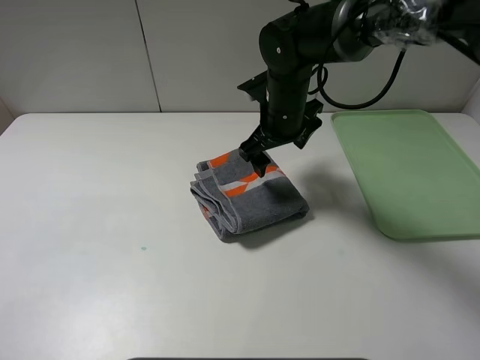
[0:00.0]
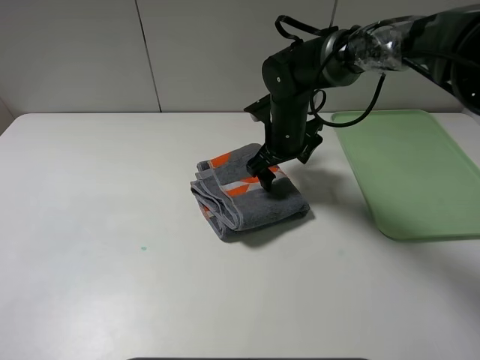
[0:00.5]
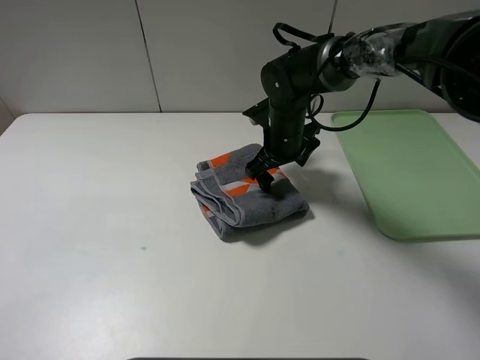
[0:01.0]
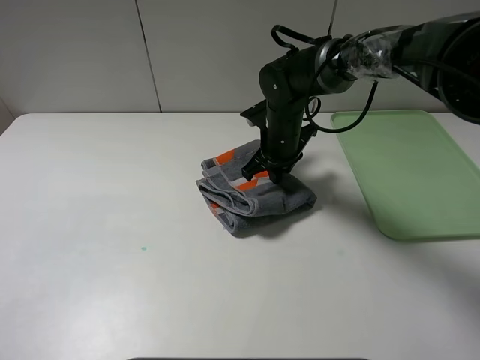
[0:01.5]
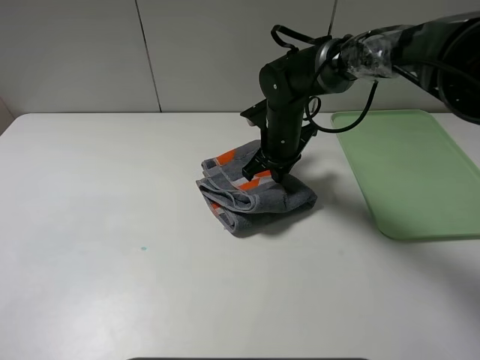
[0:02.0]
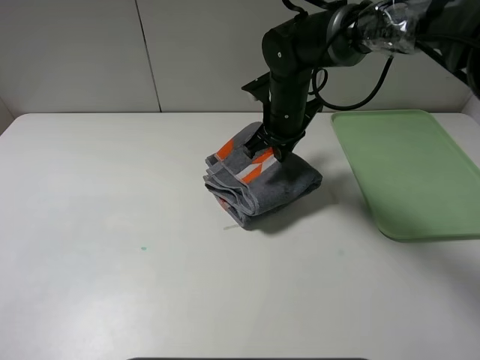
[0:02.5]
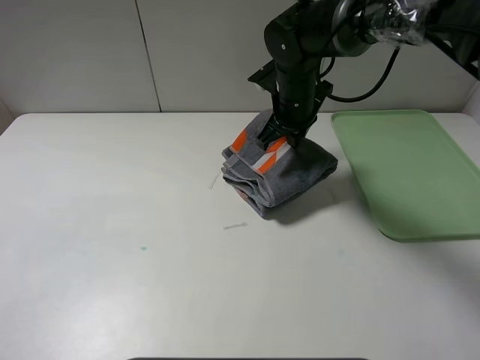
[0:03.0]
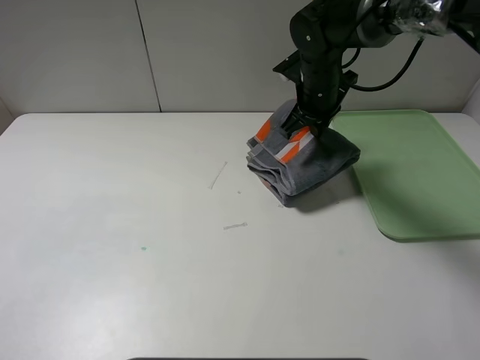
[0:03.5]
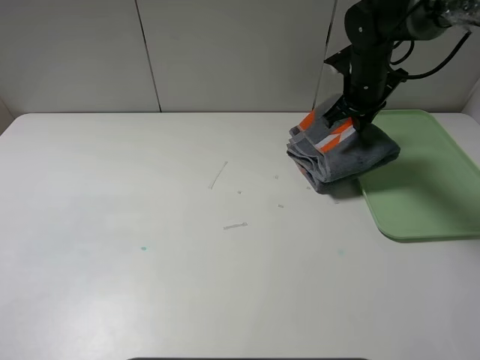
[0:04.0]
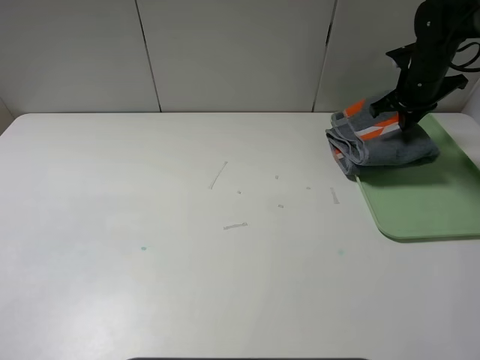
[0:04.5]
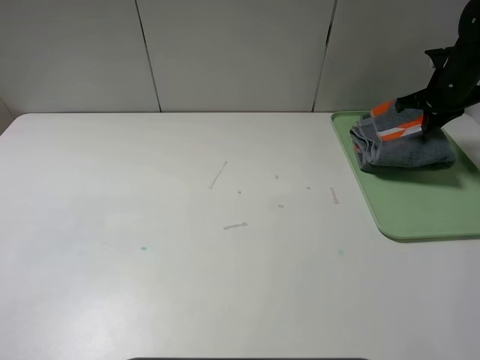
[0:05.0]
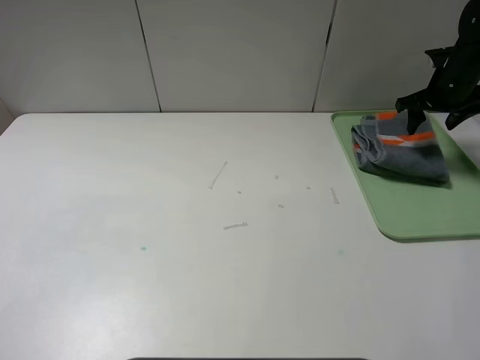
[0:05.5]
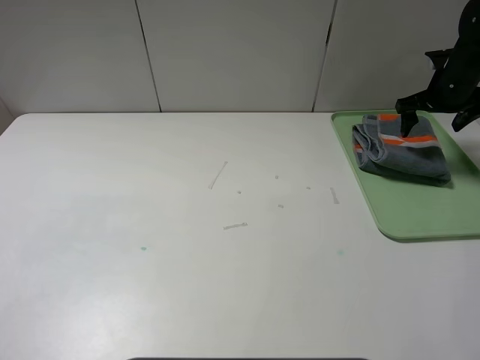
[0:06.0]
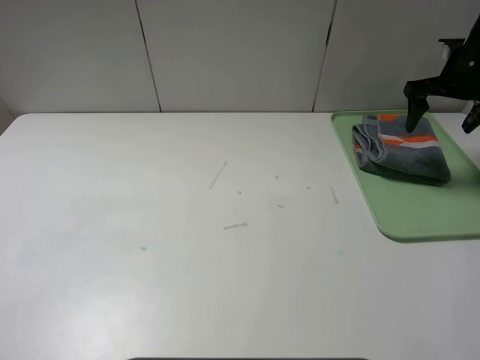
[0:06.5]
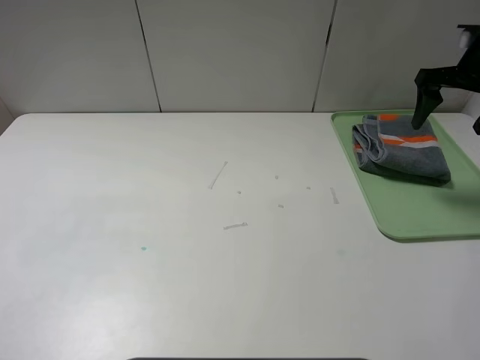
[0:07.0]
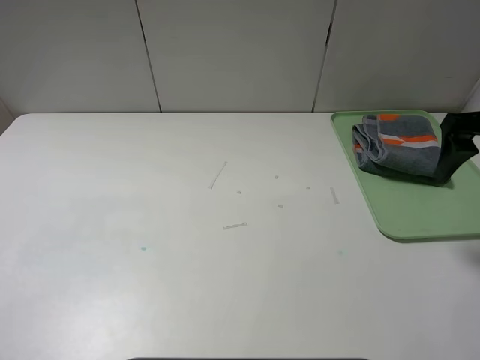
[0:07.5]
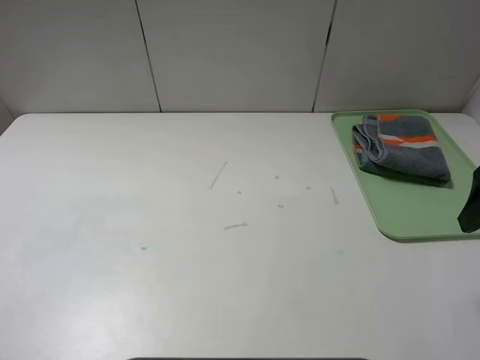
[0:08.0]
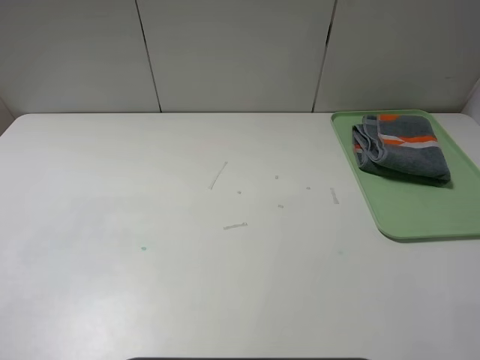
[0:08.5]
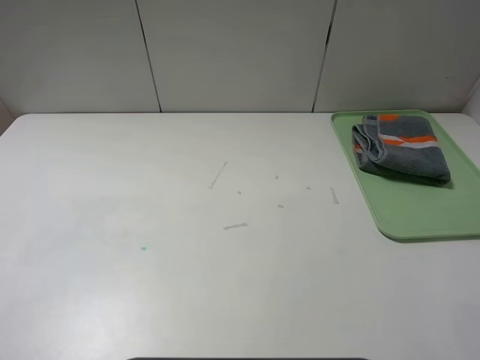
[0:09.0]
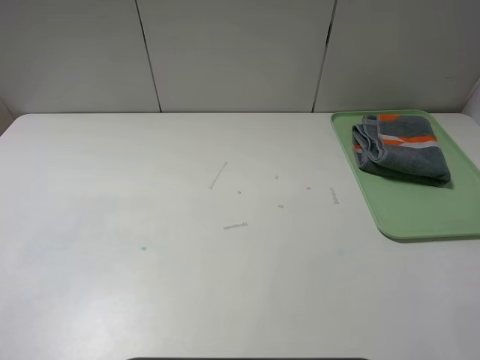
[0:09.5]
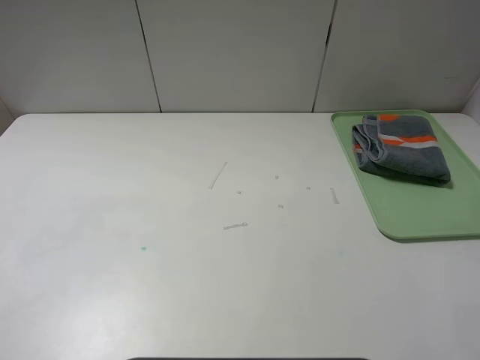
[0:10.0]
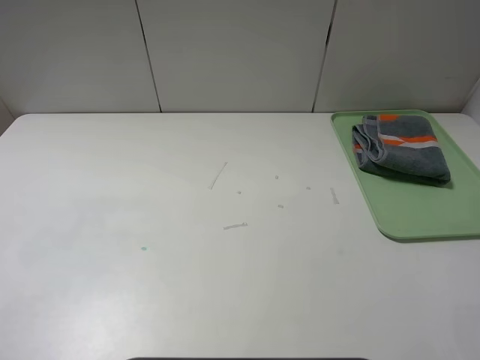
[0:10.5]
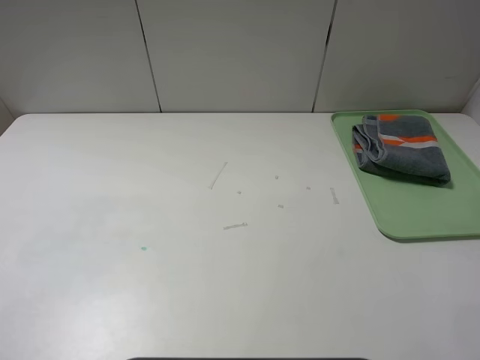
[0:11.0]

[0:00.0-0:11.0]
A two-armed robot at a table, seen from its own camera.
Step, 0:00.0 to 0:05.5: Place the folded grey towel on the tray with the right gripper.
0:00.0 to 0:02.0: The right gripper heads downward, covering some 5 cm, and closes its fingers.
0:02.0 to 0:03.5: The right gripper moves upward and to the right, approximately 10 cm.
0:03.5 to 0:05.5: The right gripper moves to the right, roughly 25 cm, and opens its fingers.
0:05.5 to 0:07.5: The right gripper heads backward and upward, covering about 20 cm.
0:07.5 to 0:09.0: The right gripper is displaced backward by approximately 25 cm.
